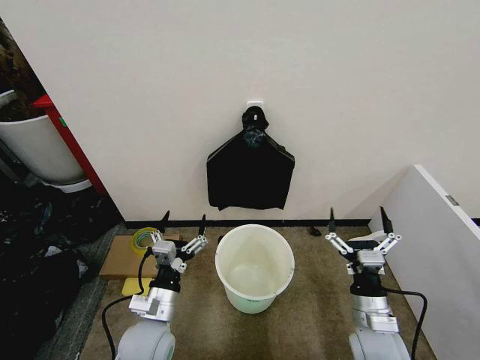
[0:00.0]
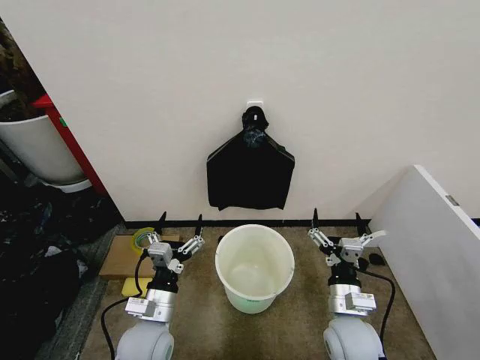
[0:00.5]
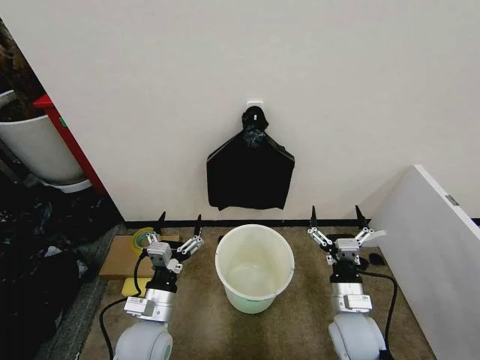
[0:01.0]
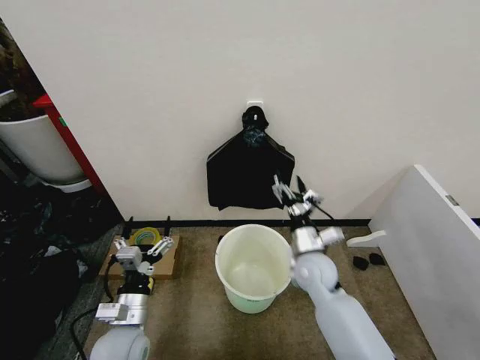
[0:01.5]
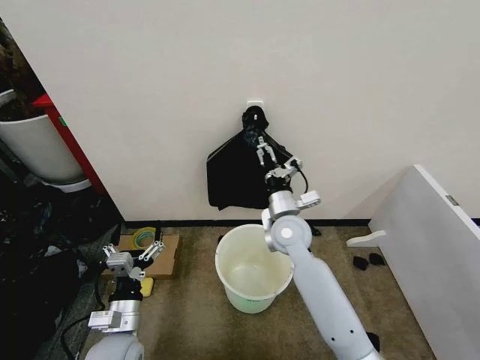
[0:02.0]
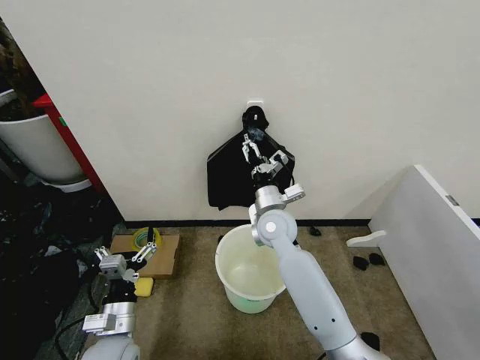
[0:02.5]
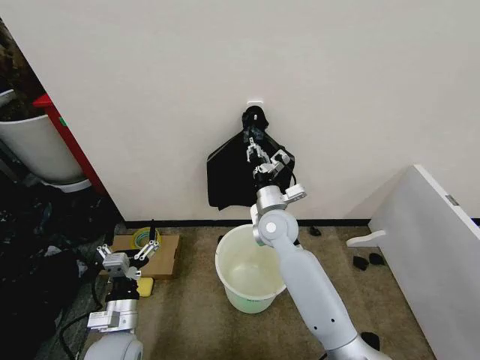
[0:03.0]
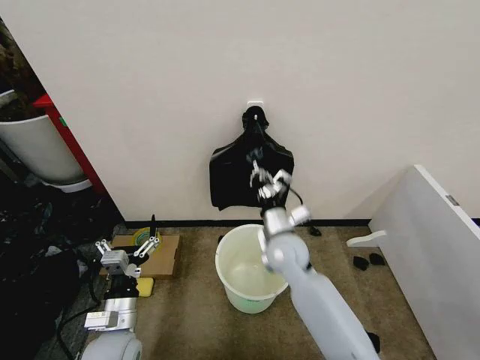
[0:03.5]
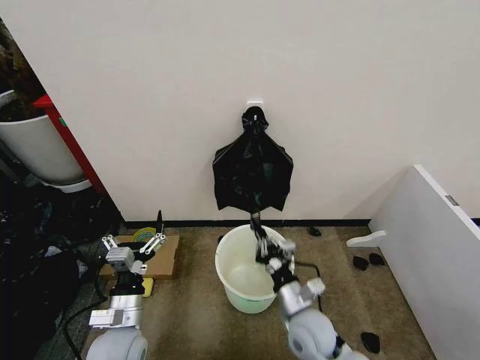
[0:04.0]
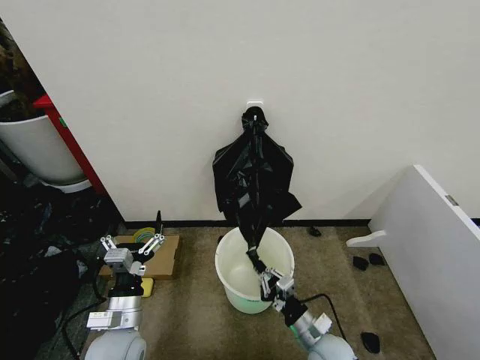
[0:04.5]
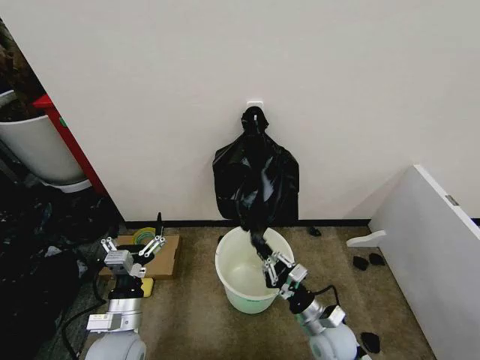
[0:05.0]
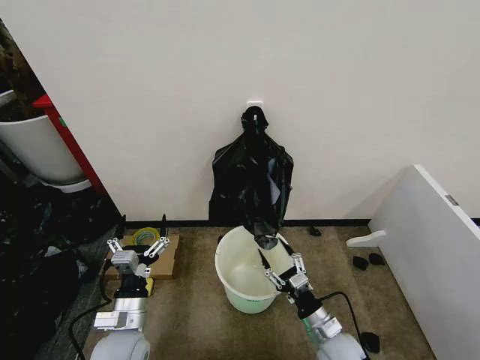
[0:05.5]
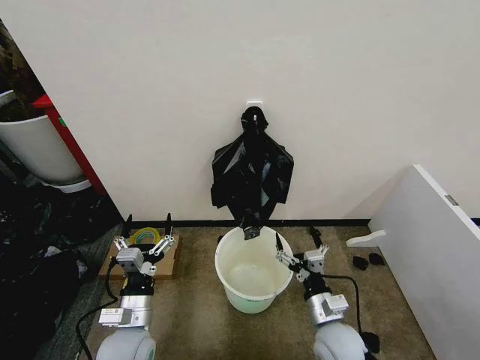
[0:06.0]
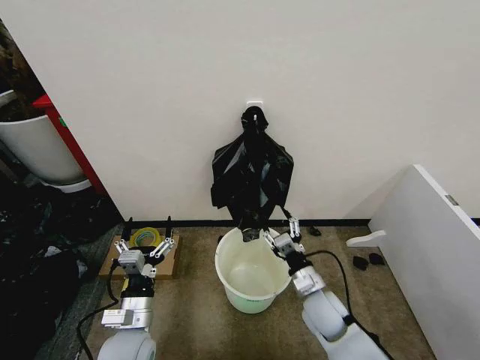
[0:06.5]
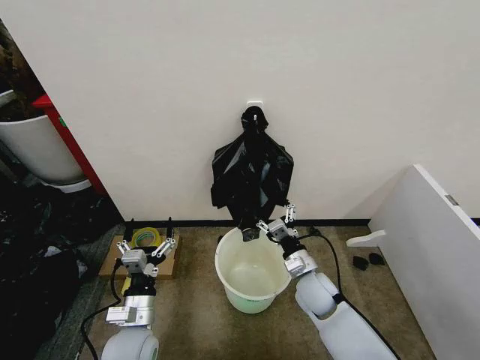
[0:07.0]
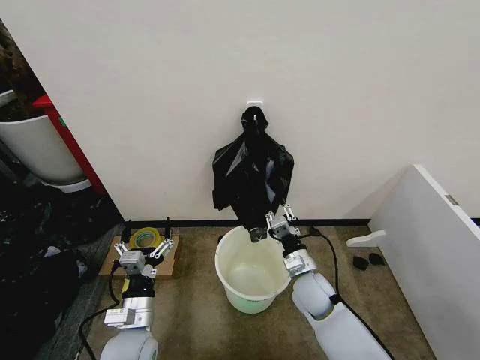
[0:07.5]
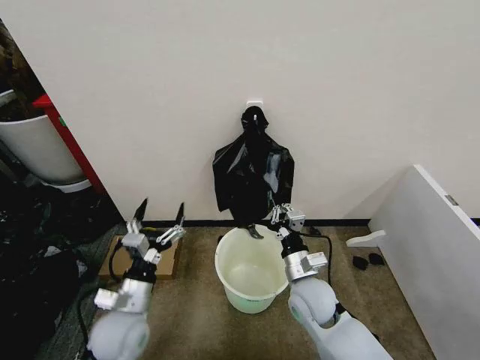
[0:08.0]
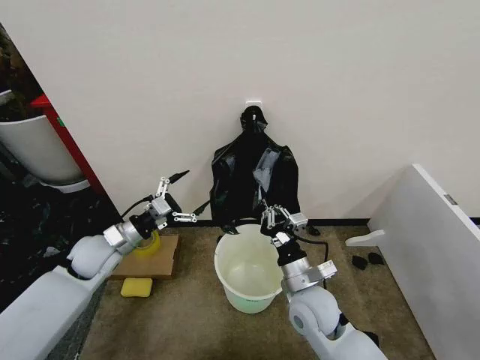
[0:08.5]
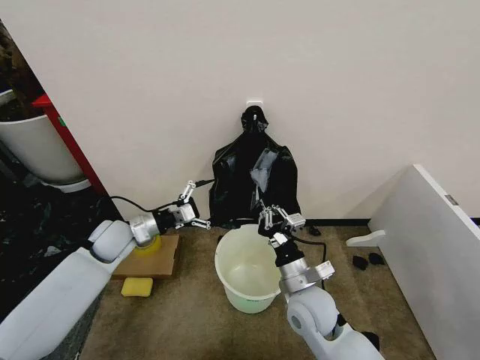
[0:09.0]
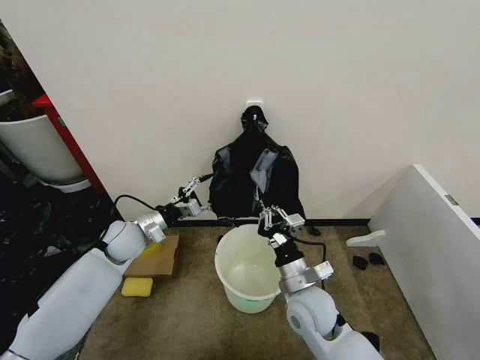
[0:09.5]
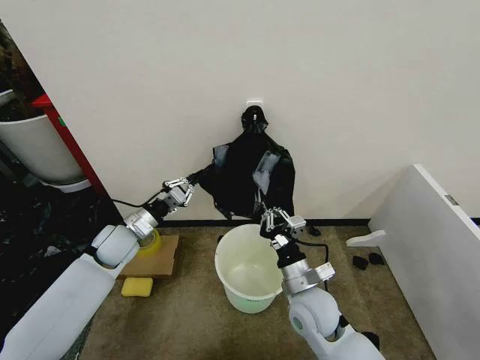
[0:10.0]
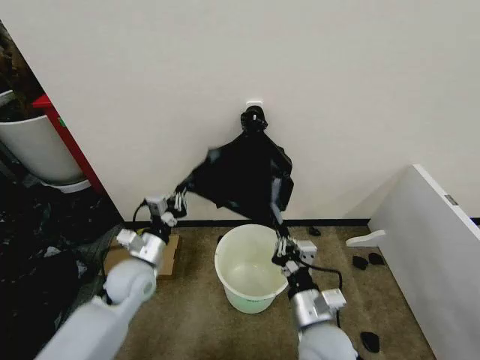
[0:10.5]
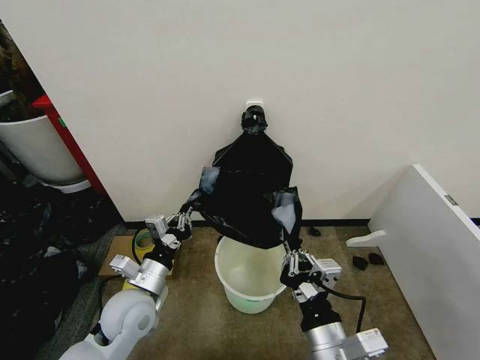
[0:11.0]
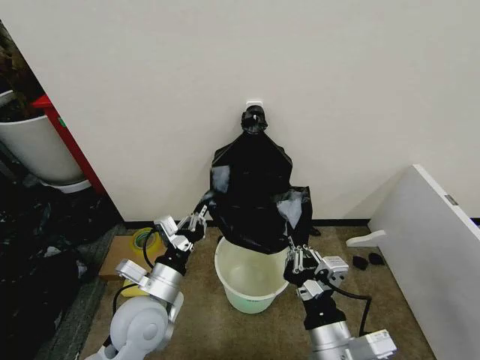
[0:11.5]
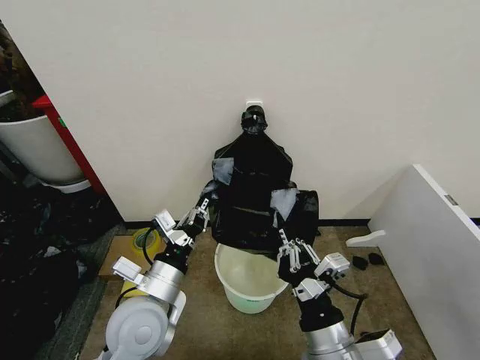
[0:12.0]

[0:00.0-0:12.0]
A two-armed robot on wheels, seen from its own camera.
Task of the whole recording: Place the garbage bag over the trash bin.
0:02.0 to 0:04.0: The right gripper shifts about 20 cm backward and downward, and closes up.
0:04.0 to 0:06.0: The right gripper shifts about 5 cm to the right, and opens its fingers.
0:06.0 to 0:08.0: The right gripper goes roughly 10 cm forward, upward and to the left, and closes up.
0:08.0 to 0:10.0: The left gripper is displaced forward by some 15 cm, and closes.
0:10.0 to 0:12.0: The right gripper shifts about 15 cm backward and upward; the left gripper heads backward and to the right, covering approximately 25 cm.

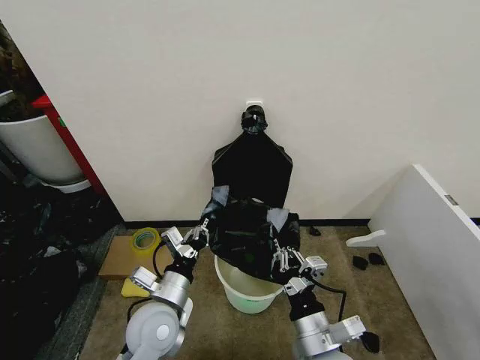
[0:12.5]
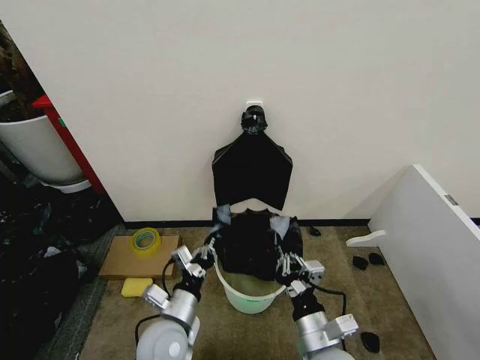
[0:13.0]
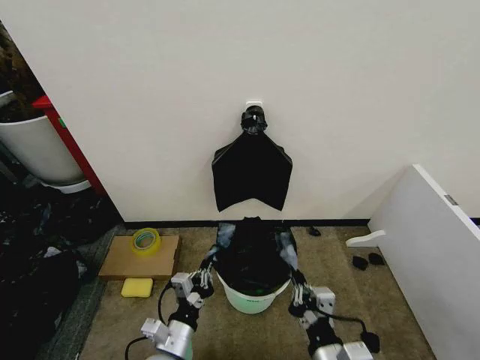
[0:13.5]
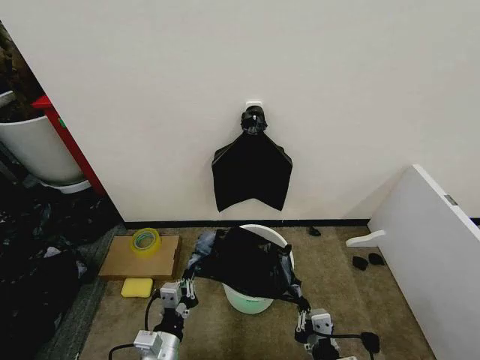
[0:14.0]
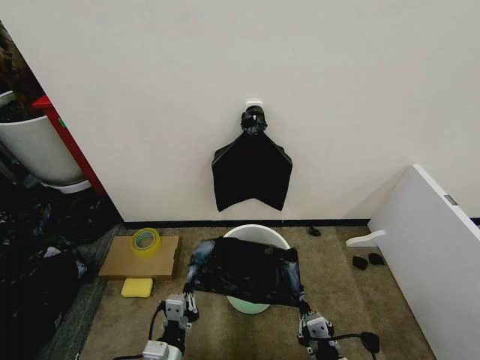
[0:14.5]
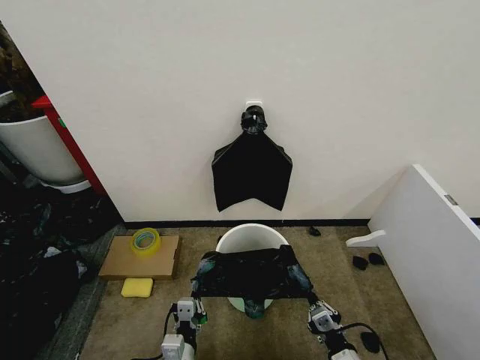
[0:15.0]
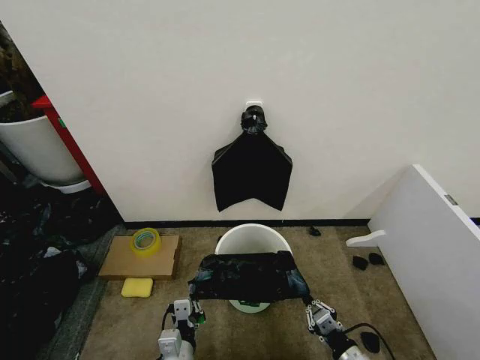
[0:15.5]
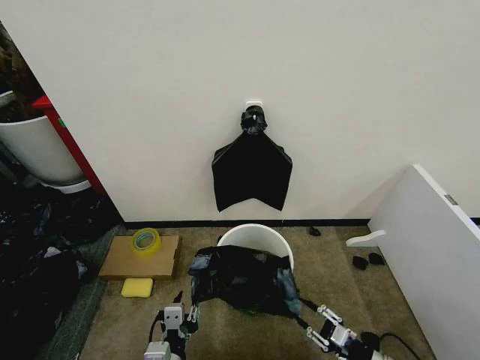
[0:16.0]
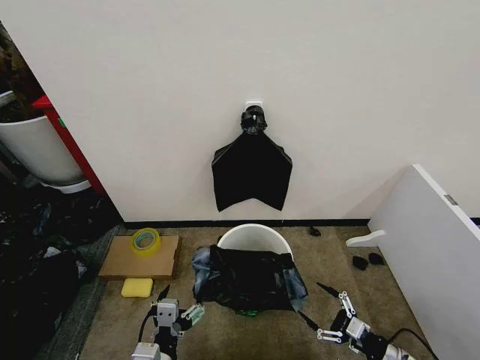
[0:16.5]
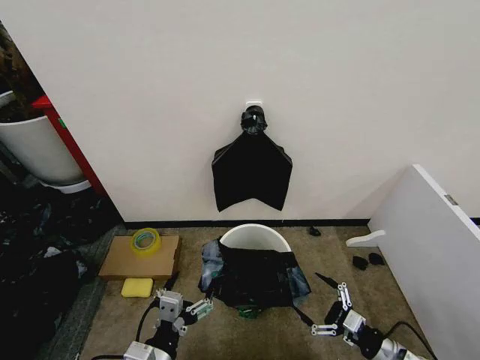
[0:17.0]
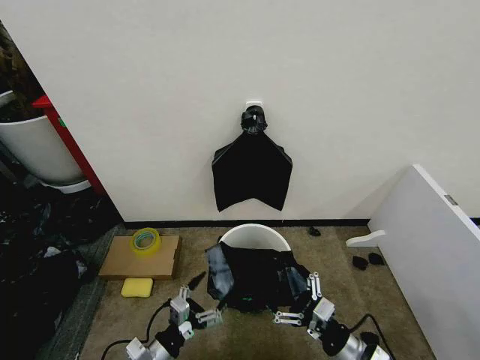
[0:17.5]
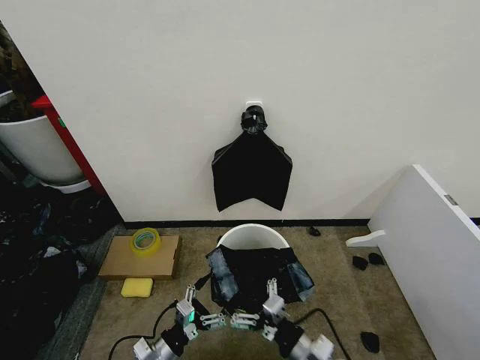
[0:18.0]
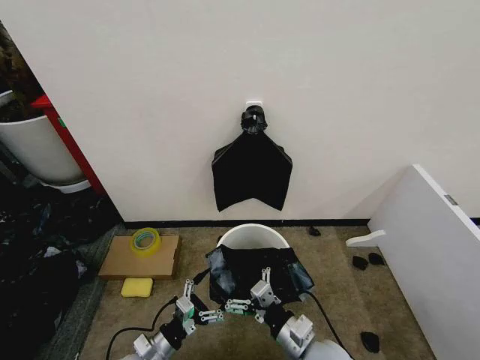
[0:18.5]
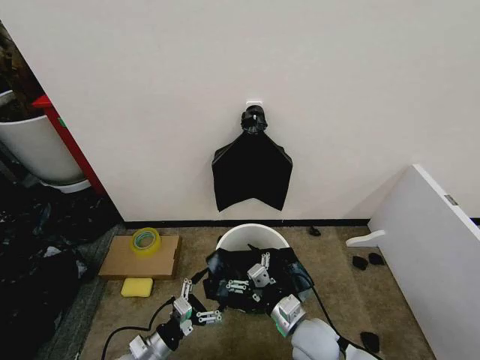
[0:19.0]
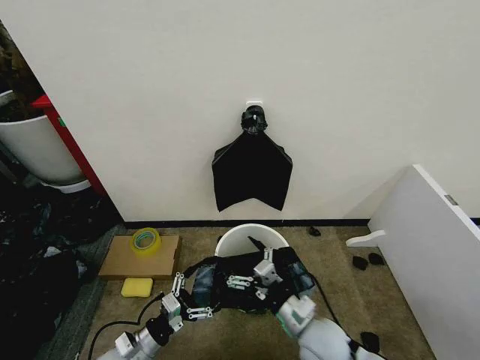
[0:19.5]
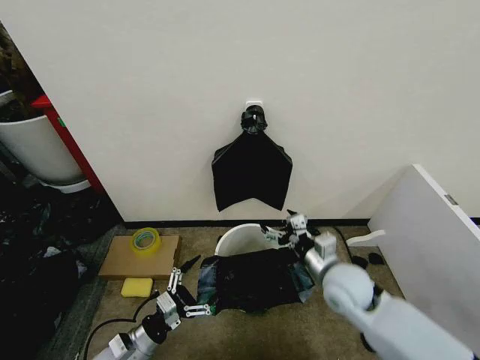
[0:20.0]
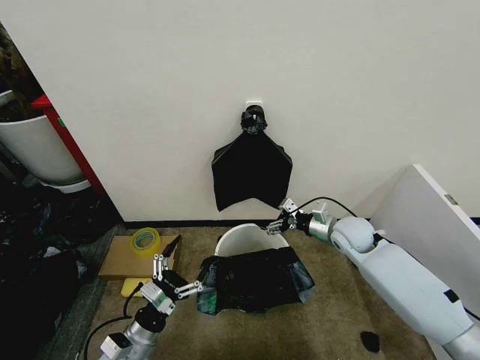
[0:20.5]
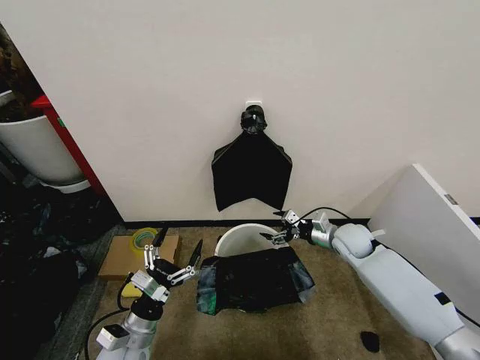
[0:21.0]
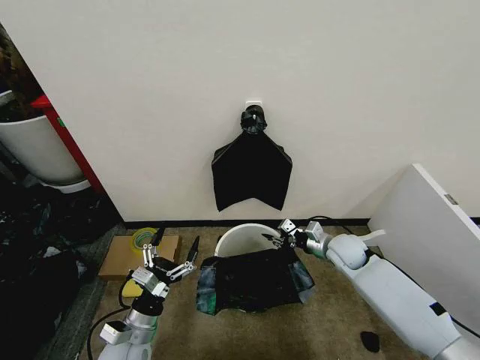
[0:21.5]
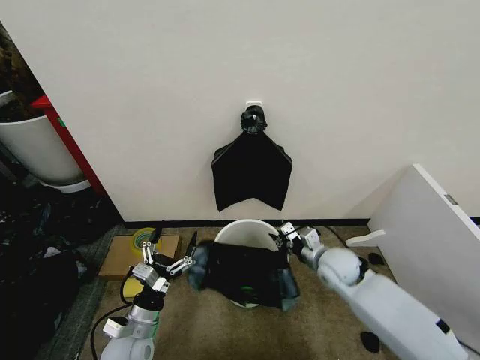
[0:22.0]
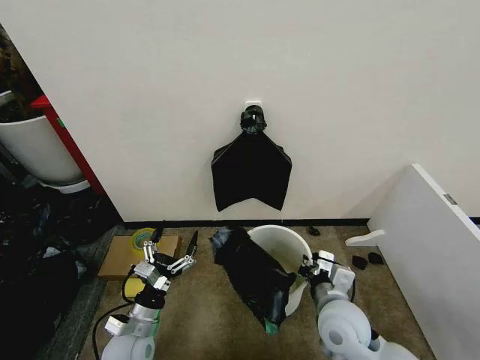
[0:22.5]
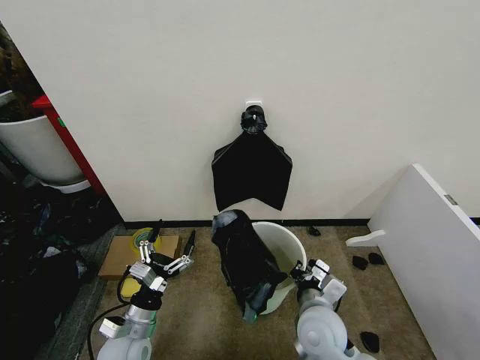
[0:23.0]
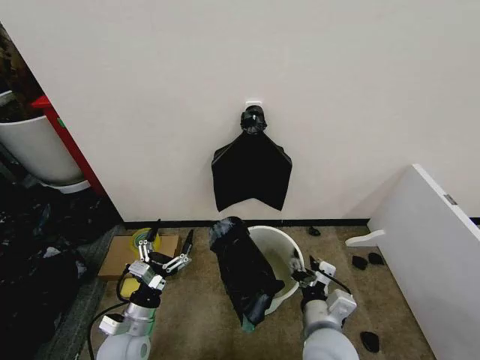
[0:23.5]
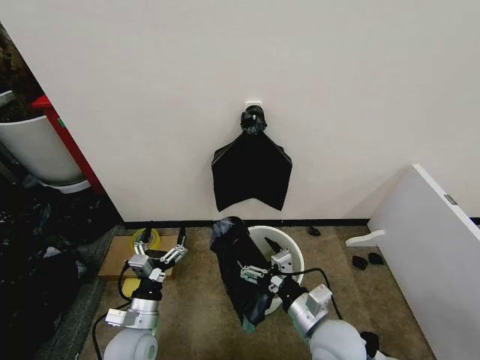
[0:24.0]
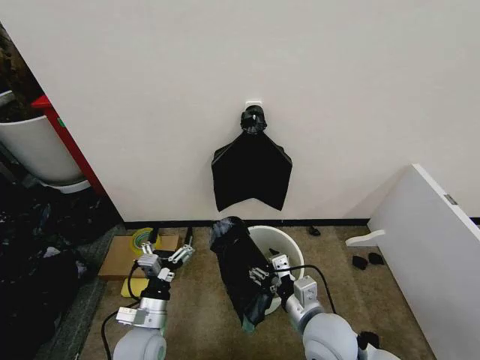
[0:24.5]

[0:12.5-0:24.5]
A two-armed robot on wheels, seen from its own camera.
Task of the whole recording: Place the garbage bag over the trash bin.
0:12.5 to 0:14.5: The left gripper moves backward and downward, some 15 cm; the right gripper heads downward, to the right and backward, covering approximately 10 cm.
0:14.5 to 0:16.5: The right gripper shifts some 20 cm to the right, and opens its fingers. Meanwhile the left gripper moves upward, roughly 5 cm, and opens.
0:16.5 to 0:18.5: The right gripper moves to the left, approximately 25 cm. Meanwhile the left gripper is displaced downward, forward and to the left by some 15 cm.
0:18.5 to 0:20.5: The right gripper travels forward and to the right by some 30 cm, while the left gripper heads upward, covering roughly 5 cm.
0:20.5 to 0:22.5: The right gripper moves backward and to the left, about 20 cm, and closes its fingers.
0:22.5 to 0:24.5: The right gripper opens up.

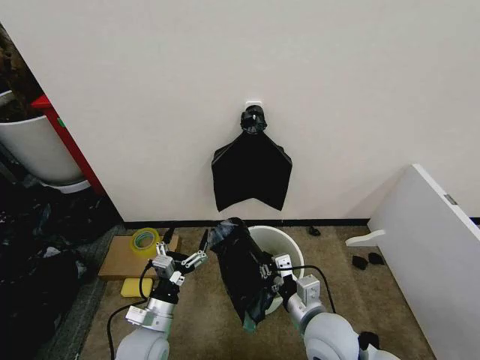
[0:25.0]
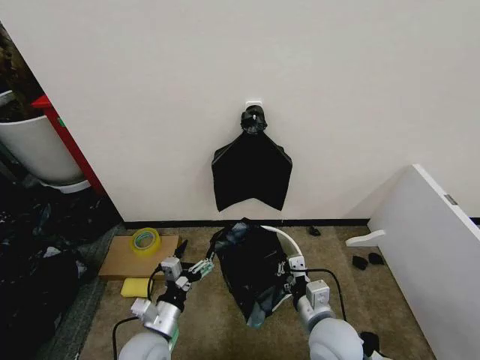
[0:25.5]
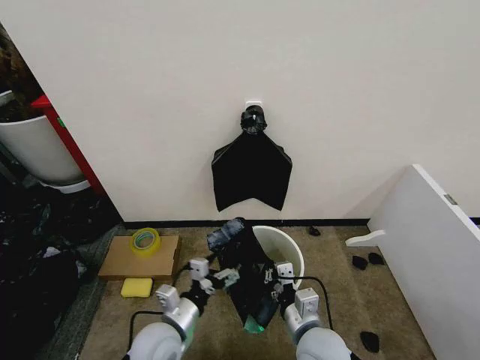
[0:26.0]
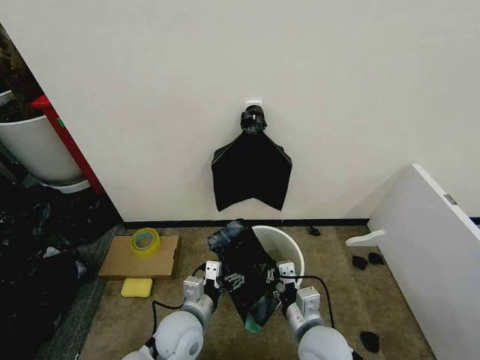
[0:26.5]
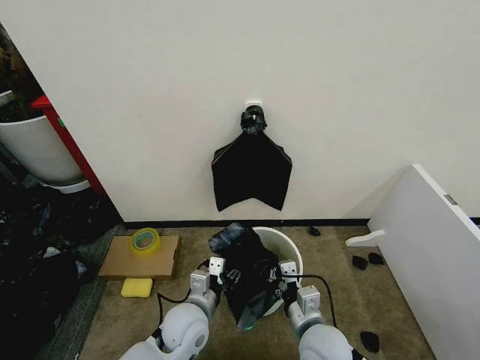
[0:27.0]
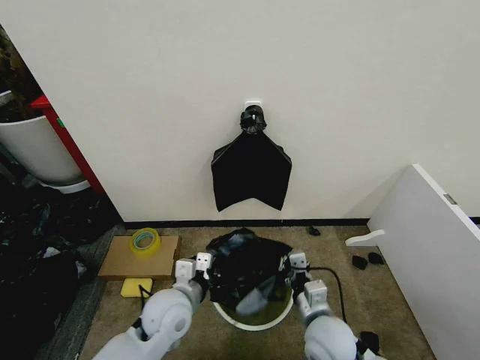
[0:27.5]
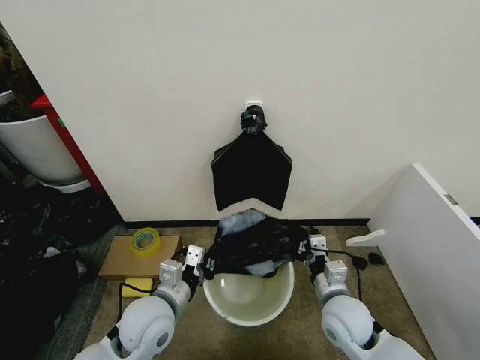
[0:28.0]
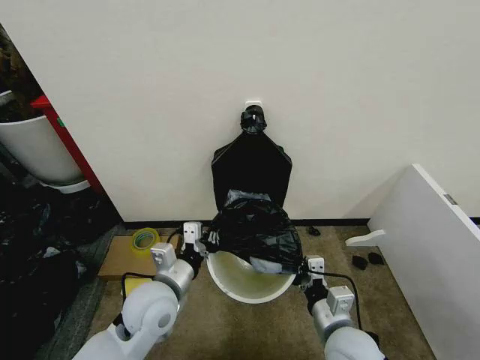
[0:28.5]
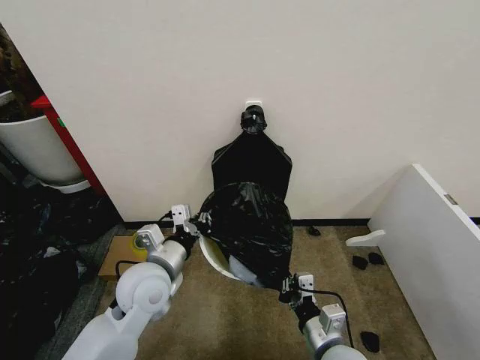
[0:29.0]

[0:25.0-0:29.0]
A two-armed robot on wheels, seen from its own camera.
Task of the whole recording: Place the garbage bag over the trash bin.
0:25.0 to 0:27.0: The left gripper goes about 10 cm to the right, and closes.
0:27.0 to 0:29.0: The left gripper travels upward and to the left by some 15 cm, and closes its fingers.
